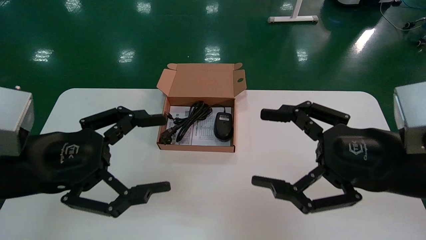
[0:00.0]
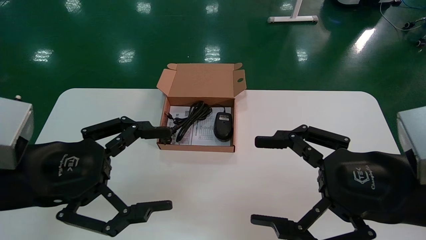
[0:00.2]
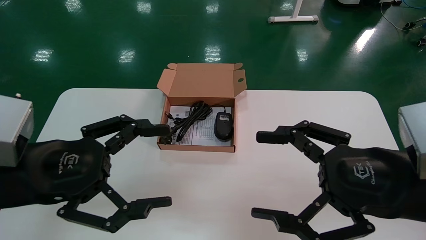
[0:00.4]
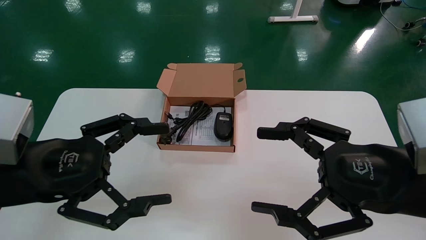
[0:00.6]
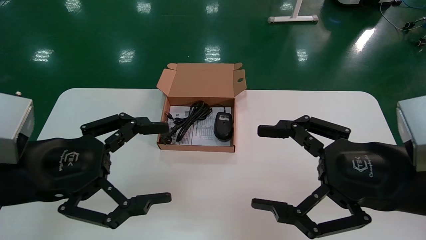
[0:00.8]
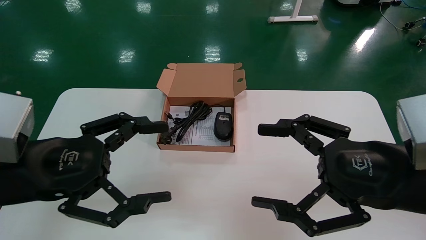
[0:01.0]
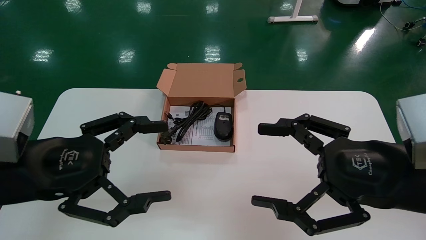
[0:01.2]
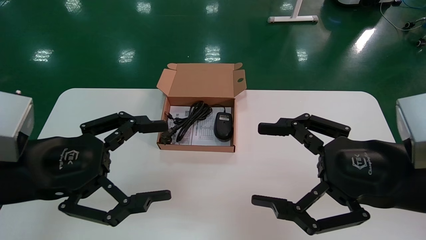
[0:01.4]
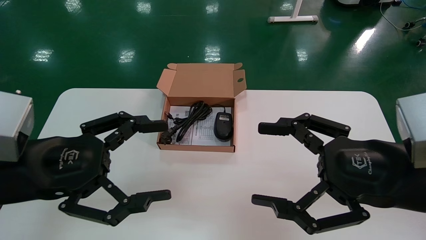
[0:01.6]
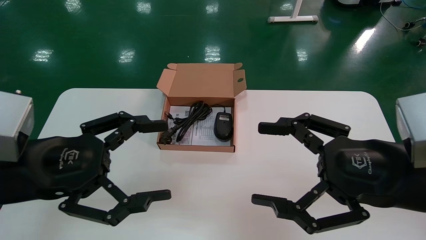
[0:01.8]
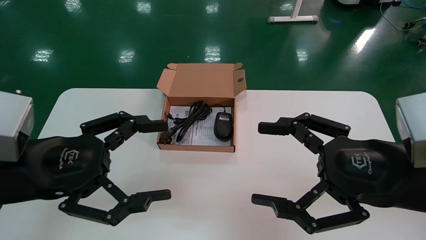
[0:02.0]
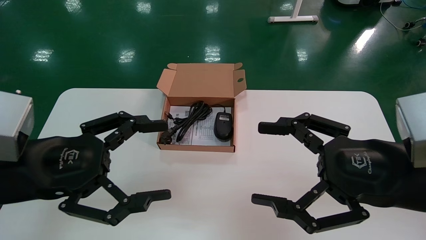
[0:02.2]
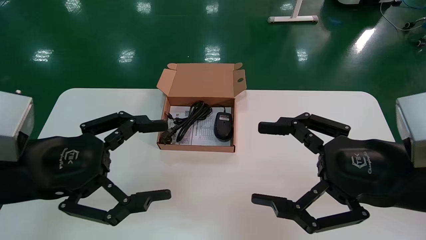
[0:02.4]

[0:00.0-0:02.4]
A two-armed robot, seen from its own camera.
0:00.0 to 0:01.2: The grippers make only small movements.
0:01.2 to 0:02.4: Both grippers stay put.
